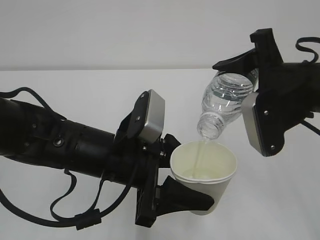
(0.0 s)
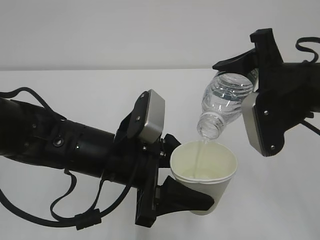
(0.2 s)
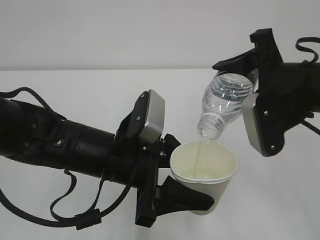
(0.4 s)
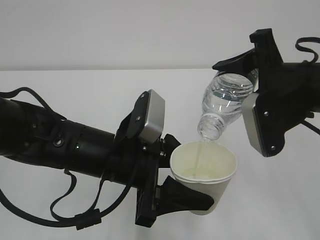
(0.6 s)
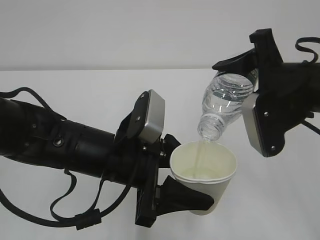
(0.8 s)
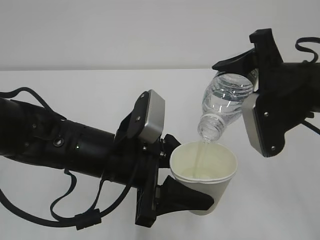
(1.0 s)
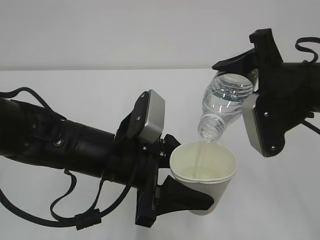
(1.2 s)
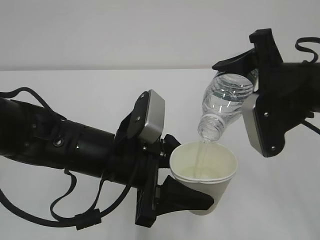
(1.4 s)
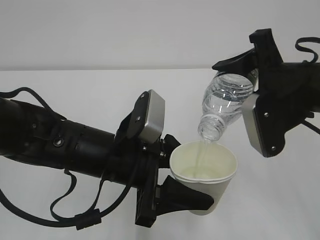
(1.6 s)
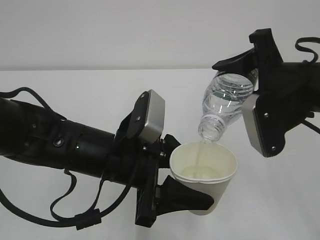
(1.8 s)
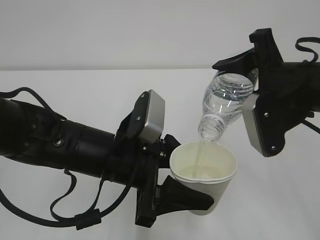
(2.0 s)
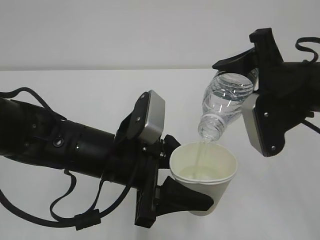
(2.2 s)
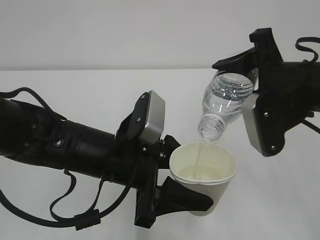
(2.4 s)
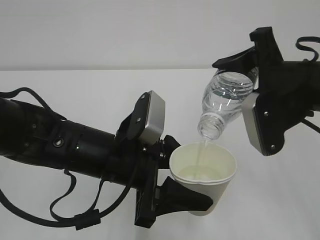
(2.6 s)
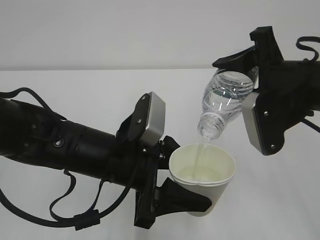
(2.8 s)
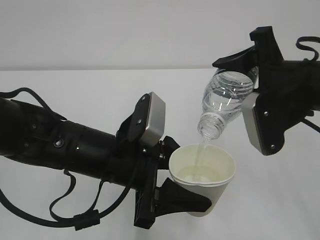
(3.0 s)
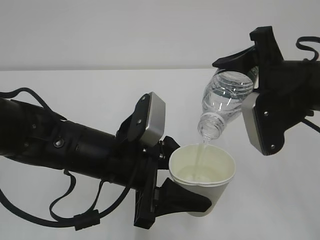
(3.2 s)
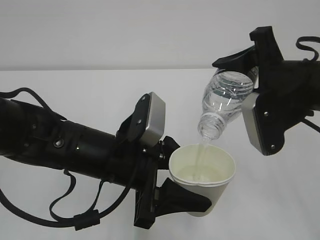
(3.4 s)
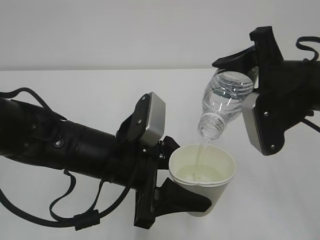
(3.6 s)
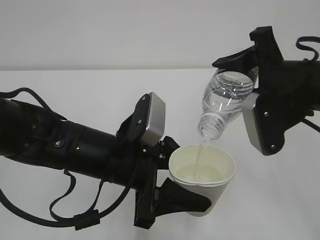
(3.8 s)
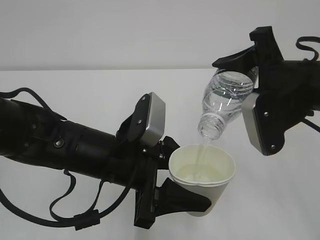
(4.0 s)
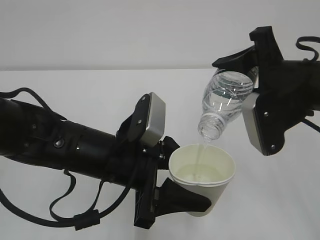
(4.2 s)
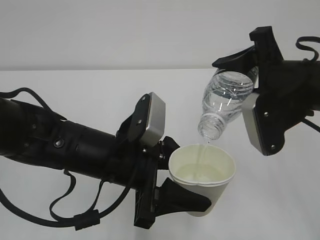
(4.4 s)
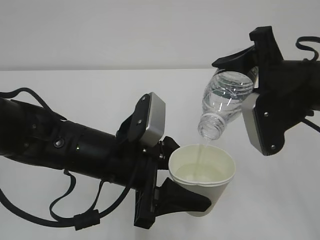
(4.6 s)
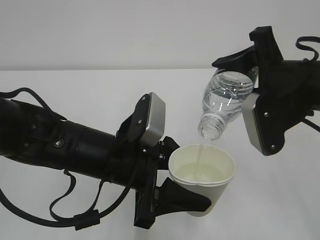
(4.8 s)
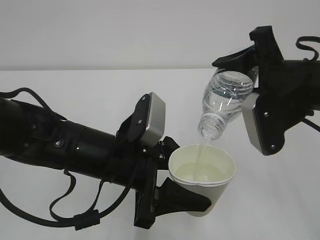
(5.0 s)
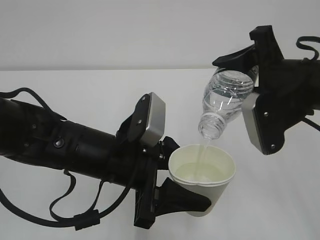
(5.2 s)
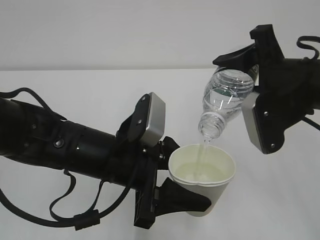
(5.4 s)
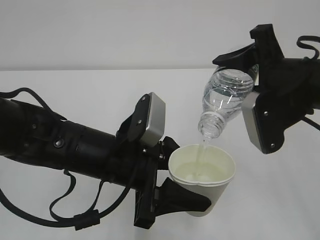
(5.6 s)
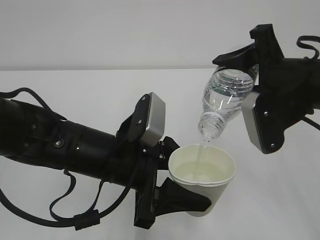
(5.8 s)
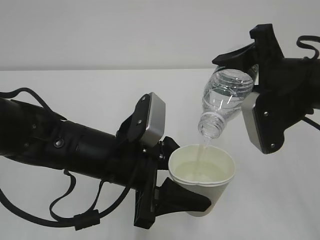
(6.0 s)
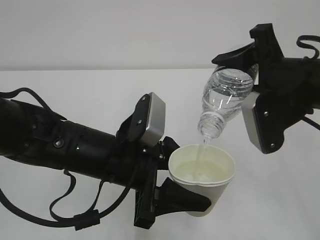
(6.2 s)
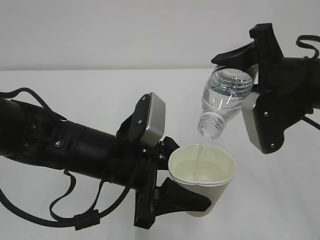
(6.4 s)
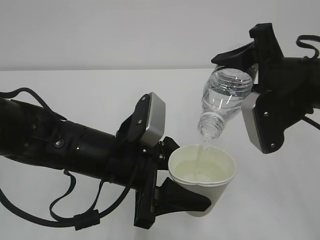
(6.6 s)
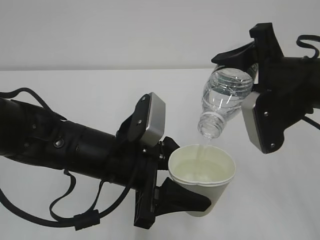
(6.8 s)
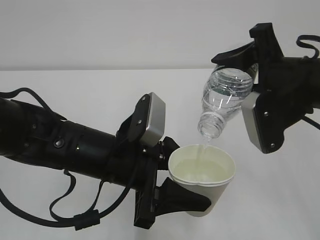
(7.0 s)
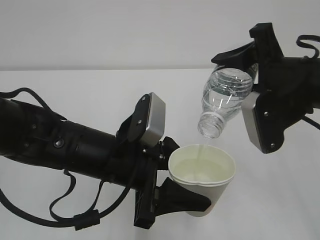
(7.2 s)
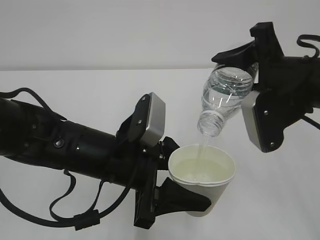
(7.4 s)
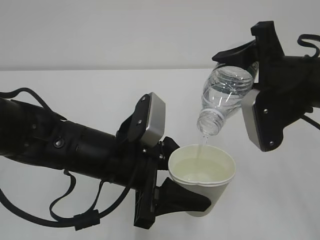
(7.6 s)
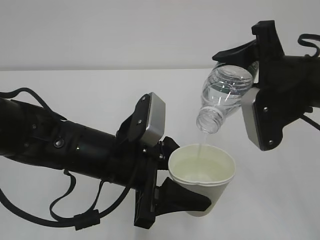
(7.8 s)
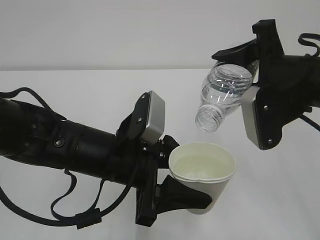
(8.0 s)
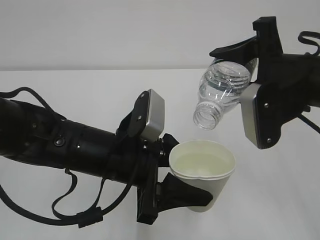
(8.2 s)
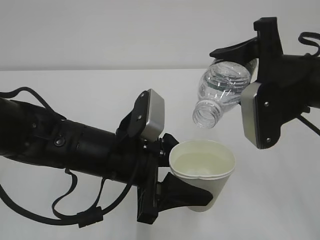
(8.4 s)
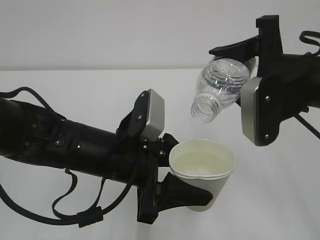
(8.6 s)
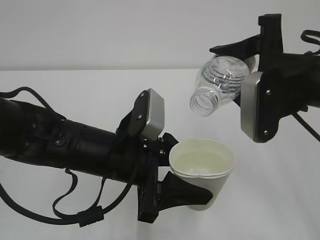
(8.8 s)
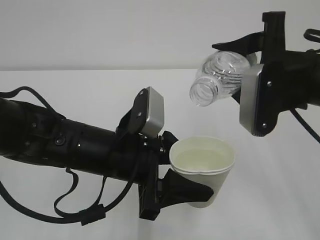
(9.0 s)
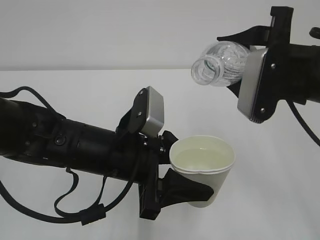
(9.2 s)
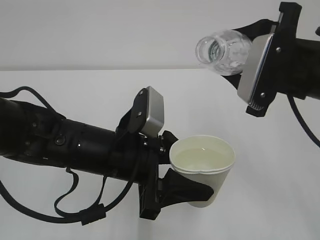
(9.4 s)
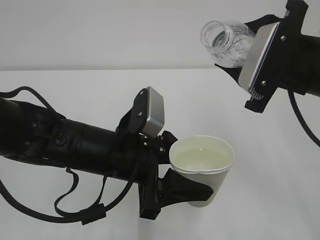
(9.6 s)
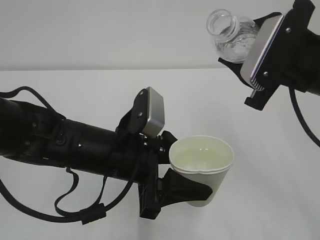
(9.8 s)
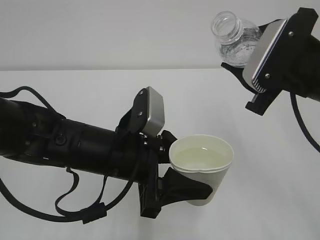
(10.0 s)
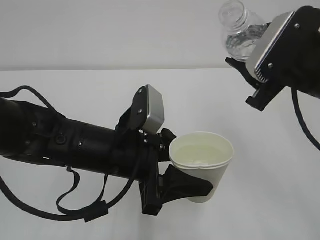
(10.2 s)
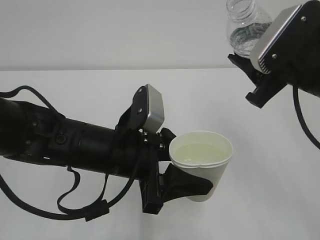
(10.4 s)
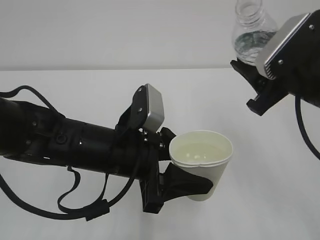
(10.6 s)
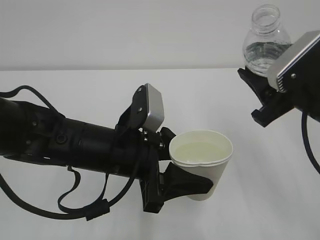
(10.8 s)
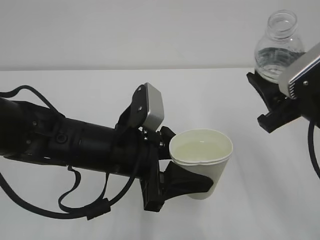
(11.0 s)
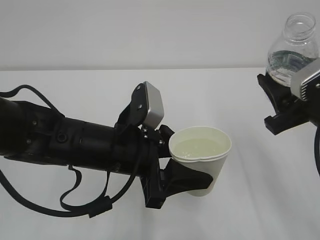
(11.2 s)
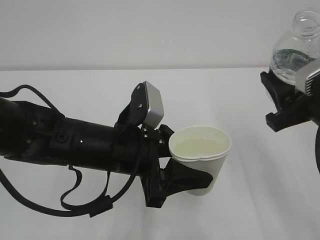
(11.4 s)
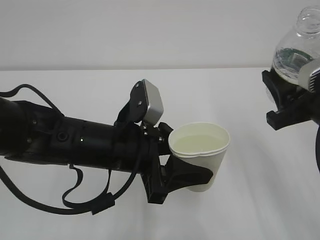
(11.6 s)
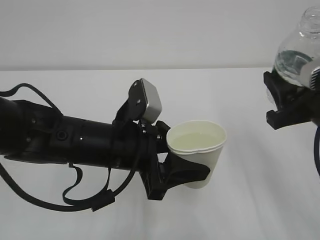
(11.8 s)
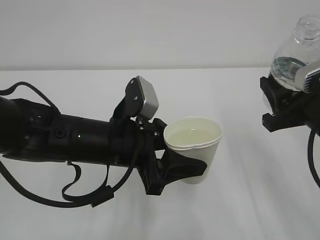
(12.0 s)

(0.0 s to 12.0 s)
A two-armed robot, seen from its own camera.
0.0 s - 4.4 s: Both grippers stay about where they are.
4.4 s - 7.6 s: Neither gripper changes place.
7.6 s - 9.0 s: The grippers make only small movements.
10.4 s - 12.0 s: The right gripper goes approximately 5 cm downward.

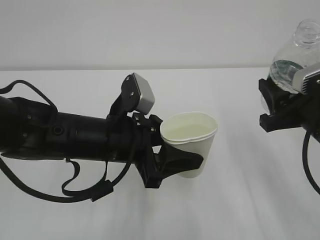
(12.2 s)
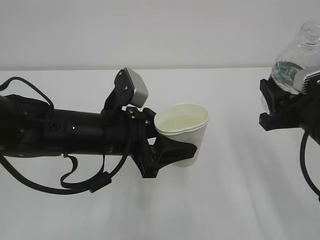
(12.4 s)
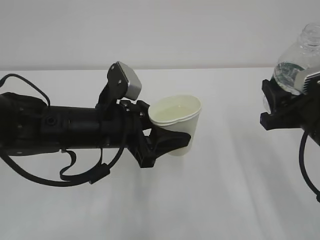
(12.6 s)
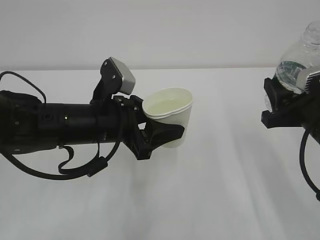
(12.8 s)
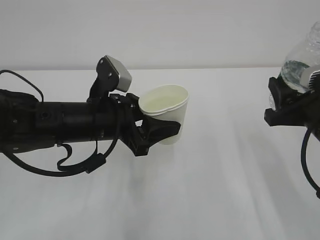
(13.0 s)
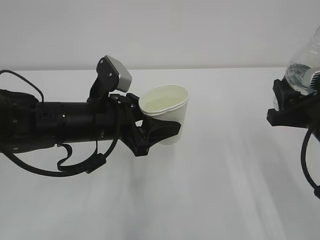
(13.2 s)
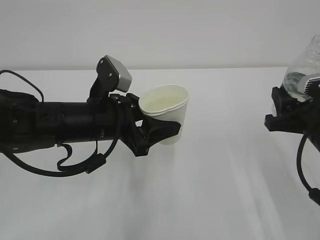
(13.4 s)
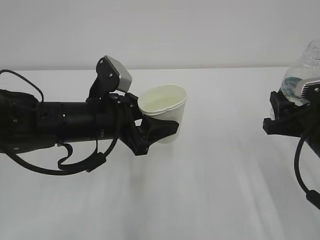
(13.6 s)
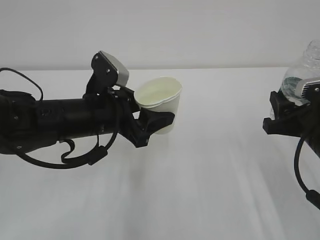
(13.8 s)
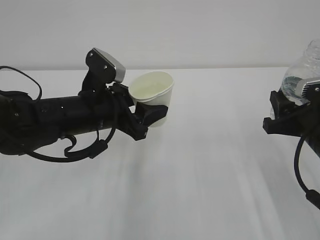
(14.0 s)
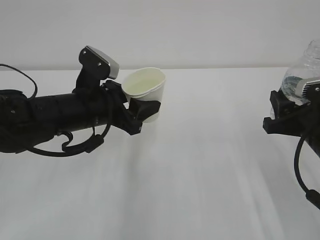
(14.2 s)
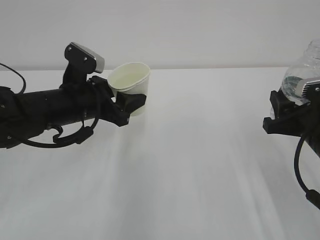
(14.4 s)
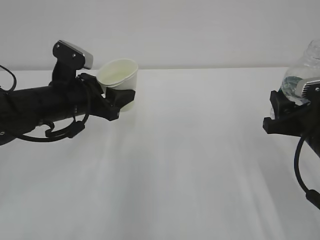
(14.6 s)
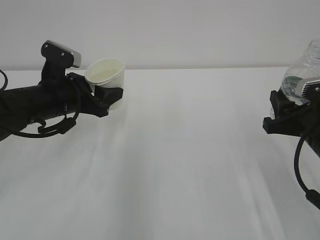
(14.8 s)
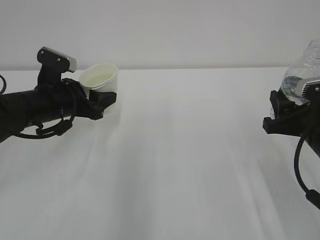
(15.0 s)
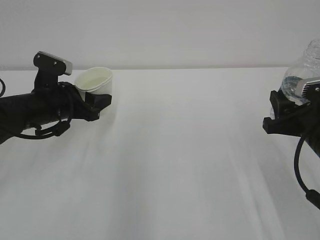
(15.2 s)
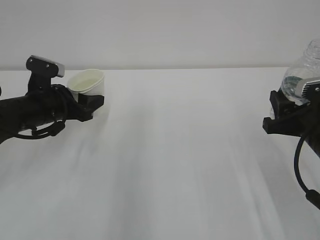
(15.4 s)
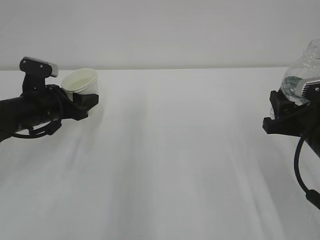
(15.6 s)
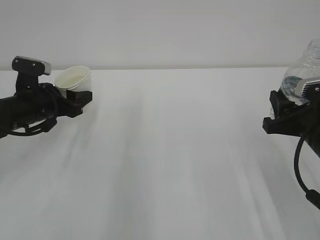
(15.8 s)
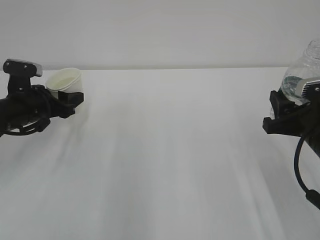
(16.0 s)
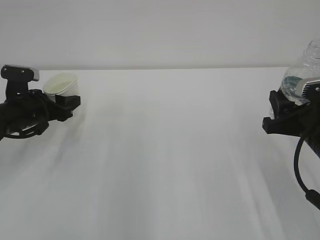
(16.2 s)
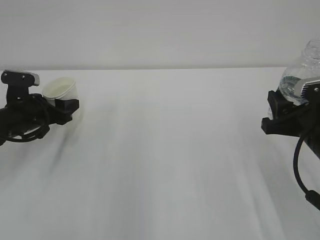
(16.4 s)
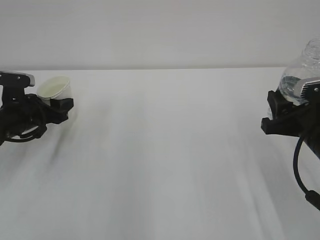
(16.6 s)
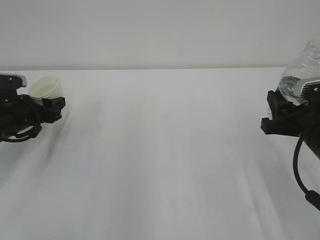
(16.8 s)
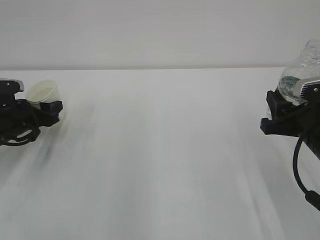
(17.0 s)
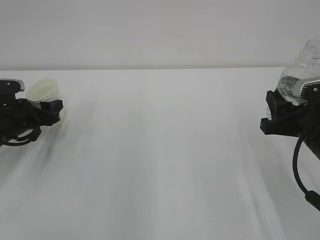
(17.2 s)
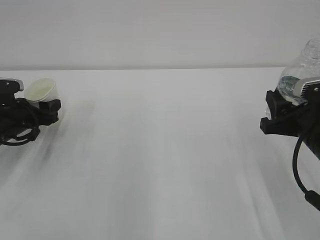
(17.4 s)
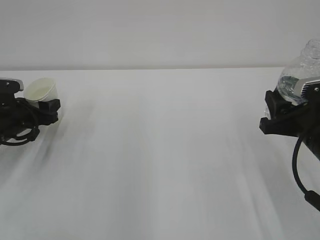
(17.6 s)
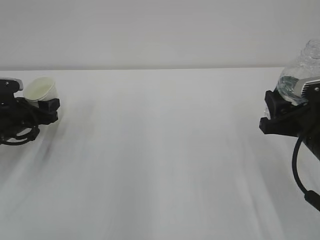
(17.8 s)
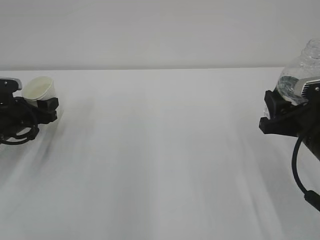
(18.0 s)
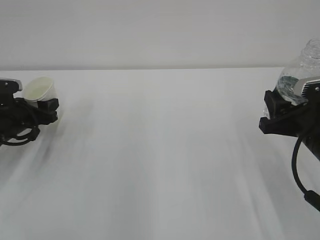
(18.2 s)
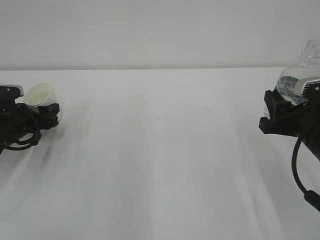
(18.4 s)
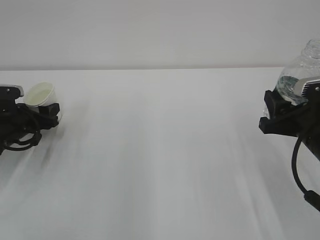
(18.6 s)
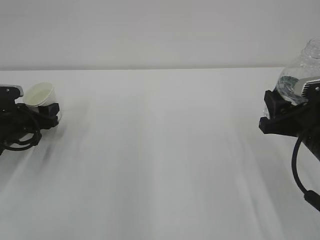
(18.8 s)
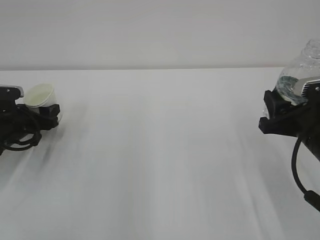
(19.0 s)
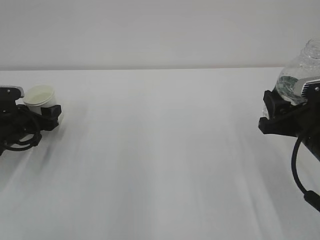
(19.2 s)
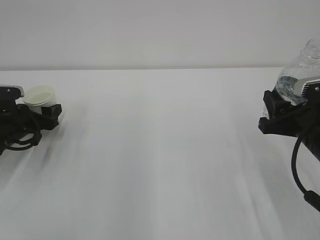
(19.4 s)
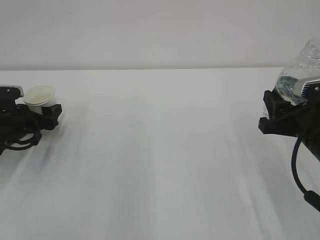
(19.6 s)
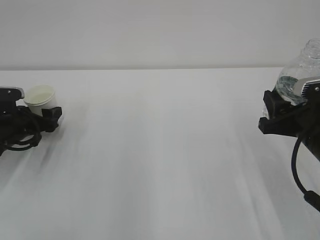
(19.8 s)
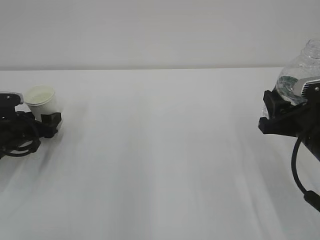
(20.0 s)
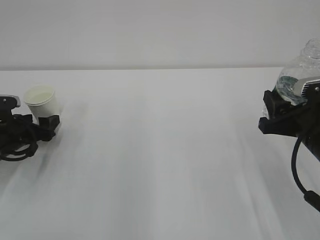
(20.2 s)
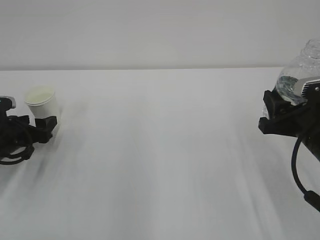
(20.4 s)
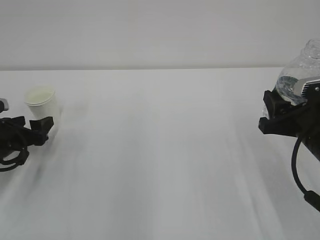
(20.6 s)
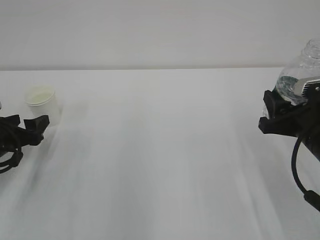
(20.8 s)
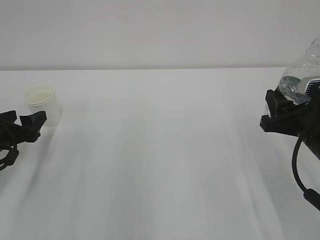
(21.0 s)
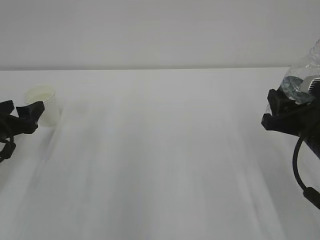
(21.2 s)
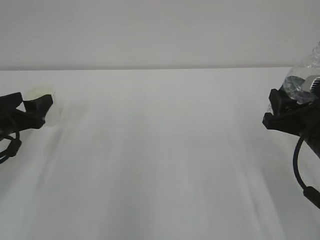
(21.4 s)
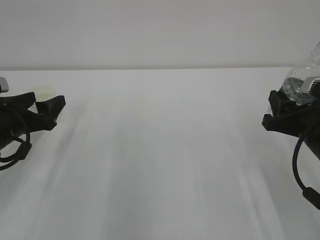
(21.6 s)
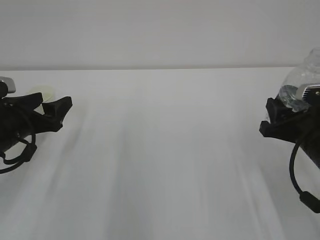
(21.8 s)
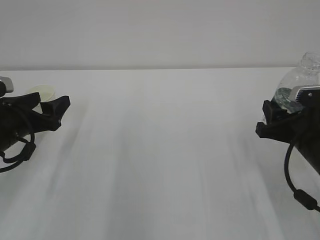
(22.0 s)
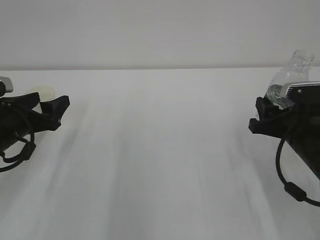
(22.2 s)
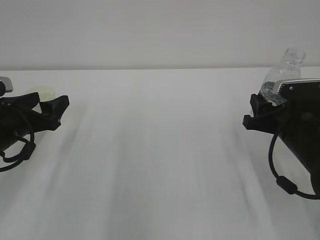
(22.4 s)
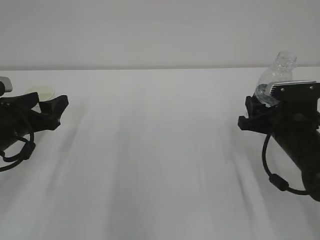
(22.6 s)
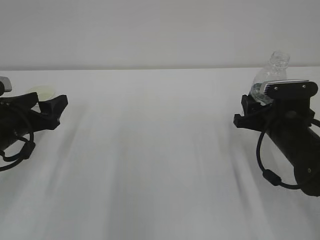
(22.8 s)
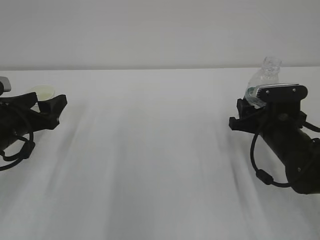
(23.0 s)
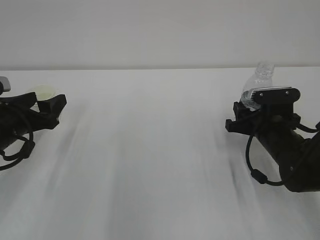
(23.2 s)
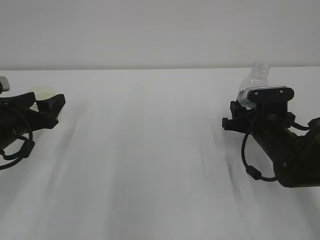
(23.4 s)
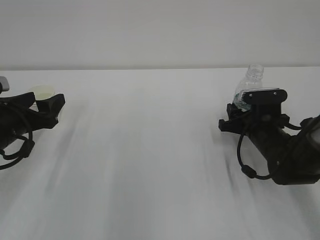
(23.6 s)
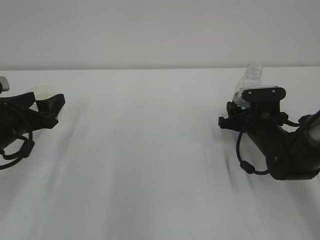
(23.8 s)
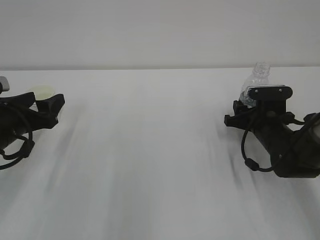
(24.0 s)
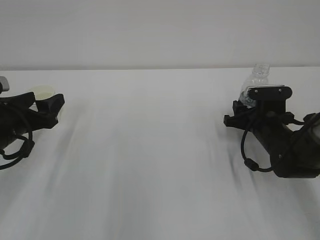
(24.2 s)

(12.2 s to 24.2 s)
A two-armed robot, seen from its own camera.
12.2 s - 13.8 s: The left gripper shifts by roughly 5 cm.
13.8 s - 15.2 s: The left gripper shifts about 10 cm to the left and forward.
15.2 s - 16.6 s: The left gripper goes roughly 10 cm to the left.
16.6 s - 18.2 s: The grippers make only small movements.
18.2 s - 19.8 s: The left gripper opens its fingers.
19.8 s - 21.2 s: The left gripper heads backward and upward, covering some 10 cm.
21.2 s - 22.6 s: The left gripper changes place by some 5 cm, while the right gripper moves some 5 cm.
22.6 s - 24.2 s: The right gripper shifts approximately 10 cm forward and downward.
